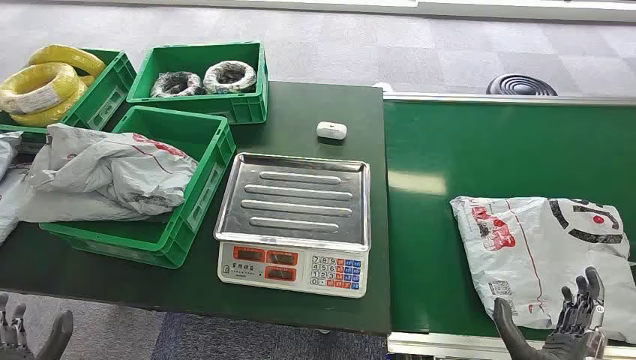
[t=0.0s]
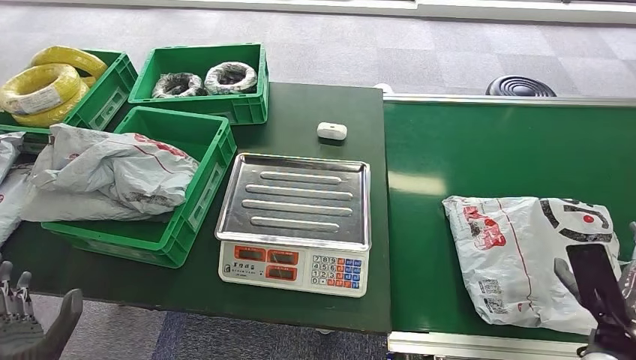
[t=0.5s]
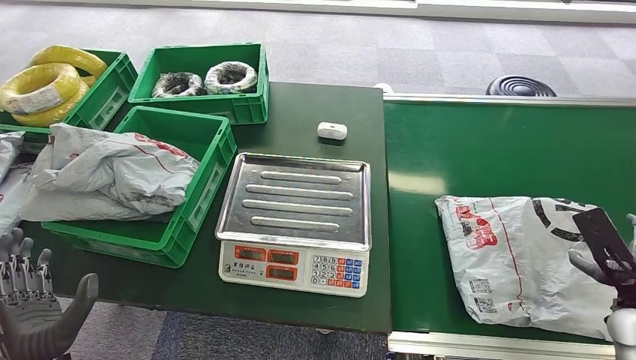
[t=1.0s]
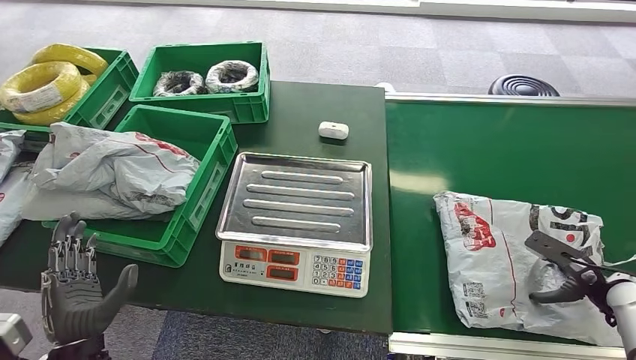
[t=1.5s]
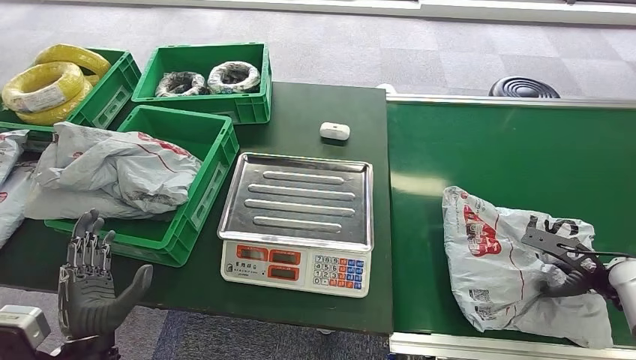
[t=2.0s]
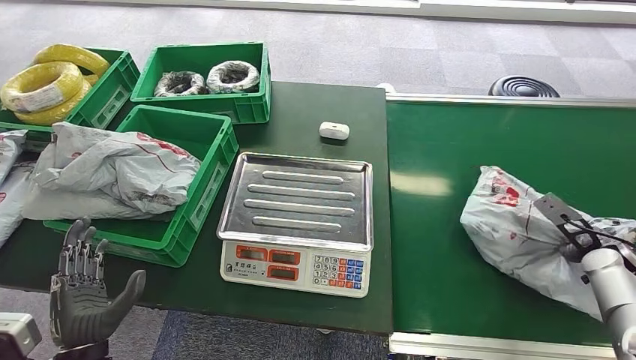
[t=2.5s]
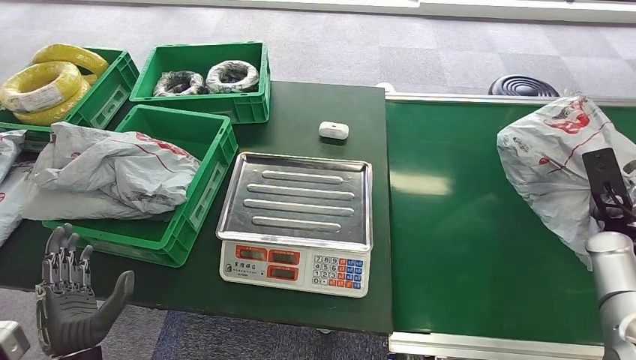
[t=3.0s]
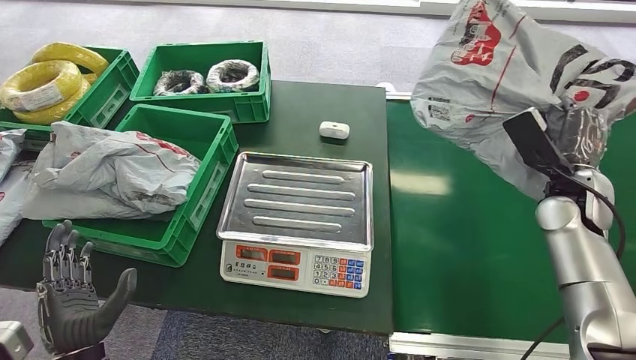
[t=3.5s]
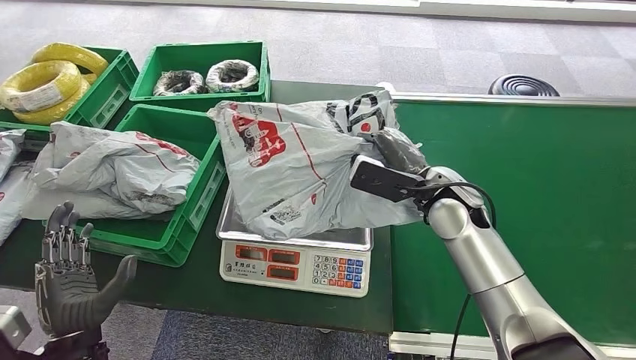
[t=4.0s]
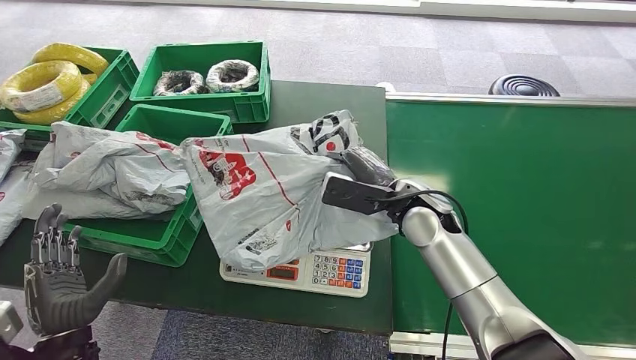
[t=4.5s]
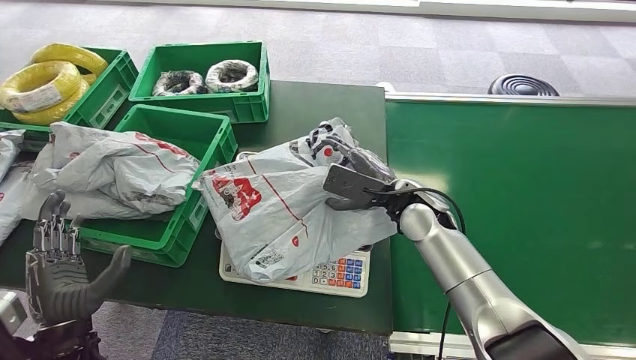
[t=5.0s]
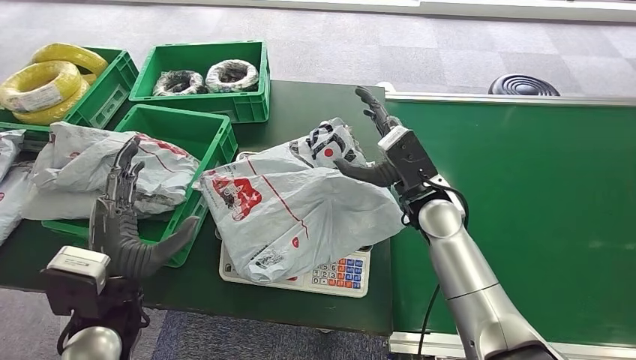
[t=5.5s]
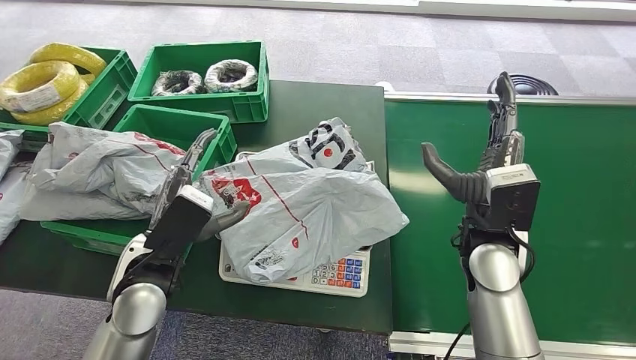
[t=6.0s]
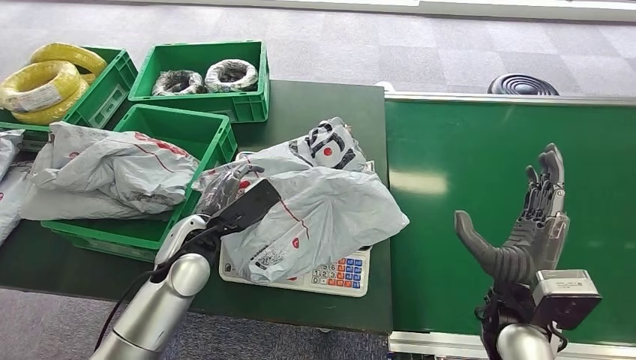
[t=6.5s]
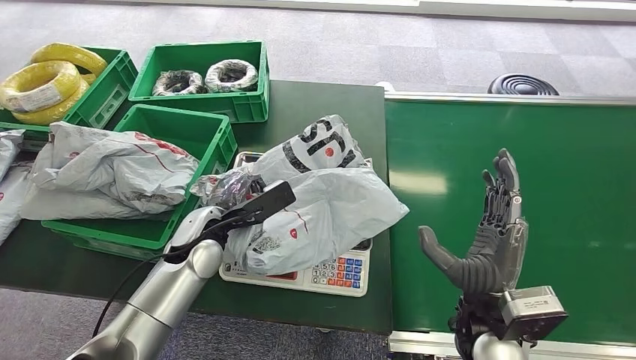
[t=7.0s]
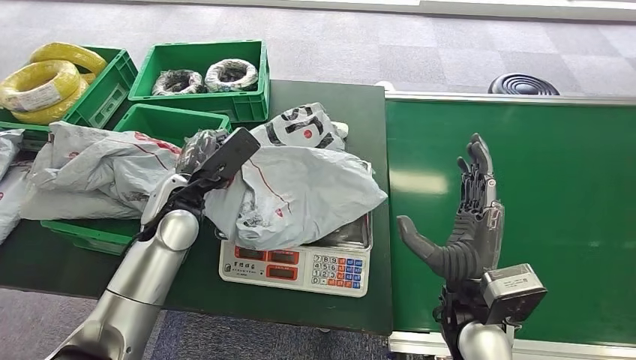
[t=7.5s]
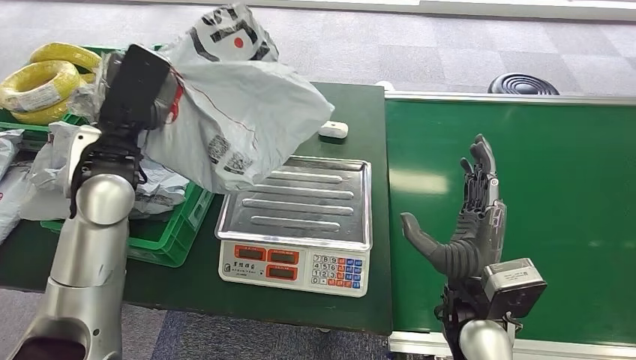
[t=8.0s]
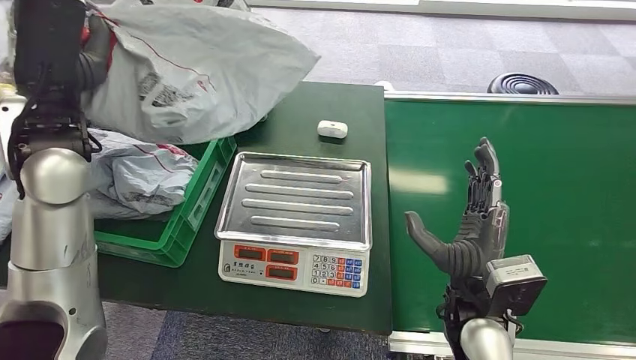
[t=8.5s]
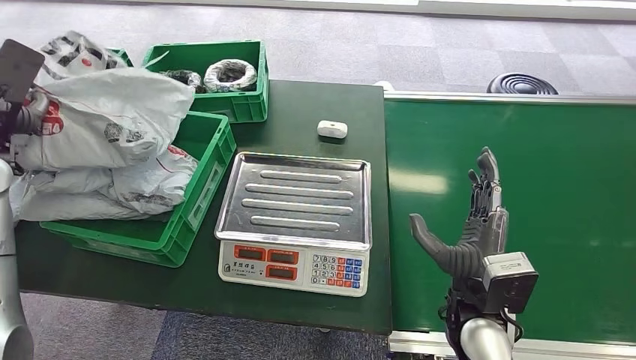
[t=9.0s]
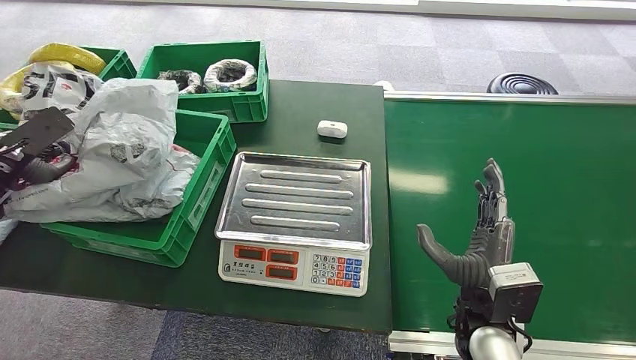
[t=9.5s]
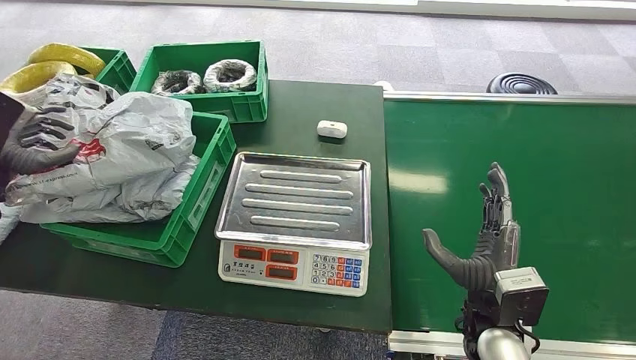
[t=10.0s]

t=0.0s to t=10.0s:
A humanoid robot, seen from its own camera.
Step, t=0.0s to t=3.0s: Pick up the package from the conveyor belt.
Step, t=4.5s to t=5.0s: Place the package onto the inbound machine.
Step, t=6.0s to t=8.0s: Pick up the package from the inbound machine.
Step, t=8.5s to t=10.0s: Place the package into the parcel locker.
